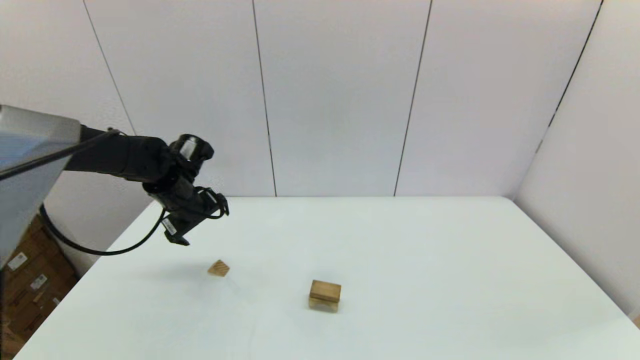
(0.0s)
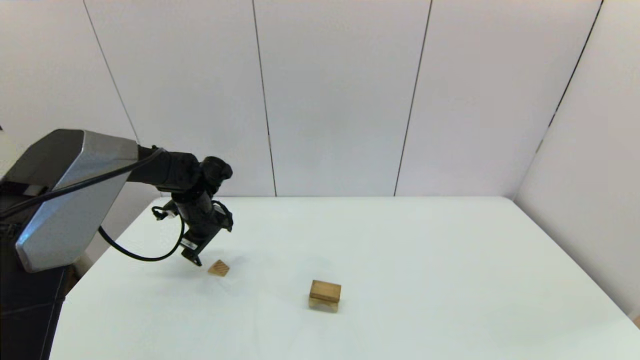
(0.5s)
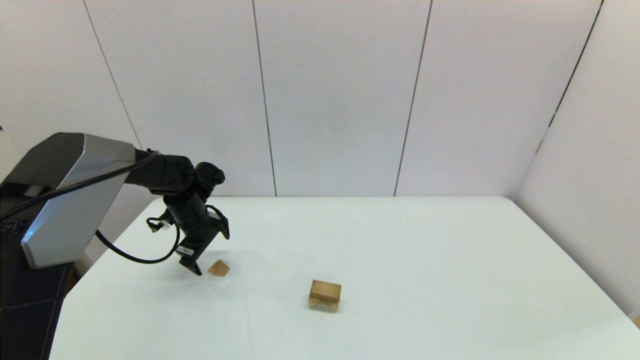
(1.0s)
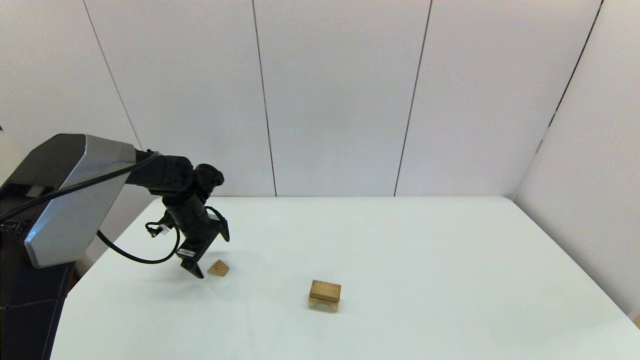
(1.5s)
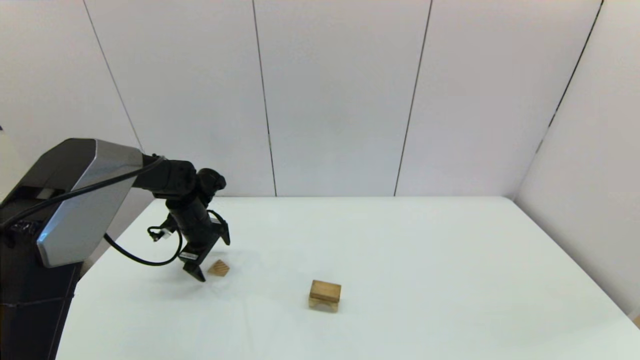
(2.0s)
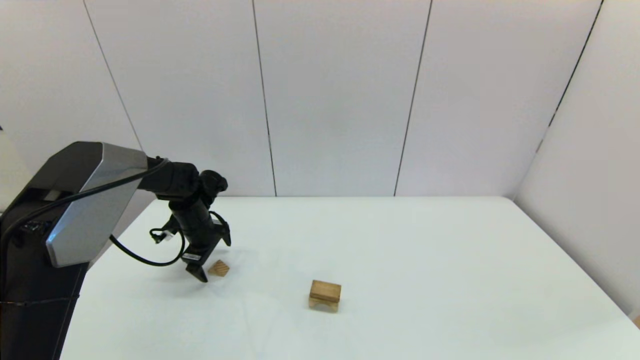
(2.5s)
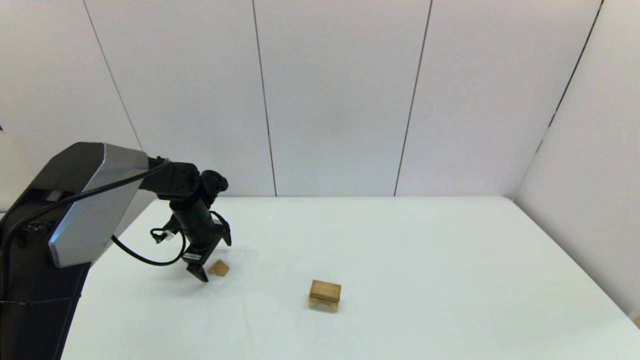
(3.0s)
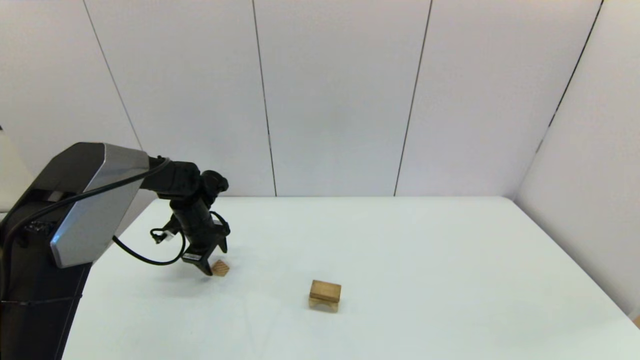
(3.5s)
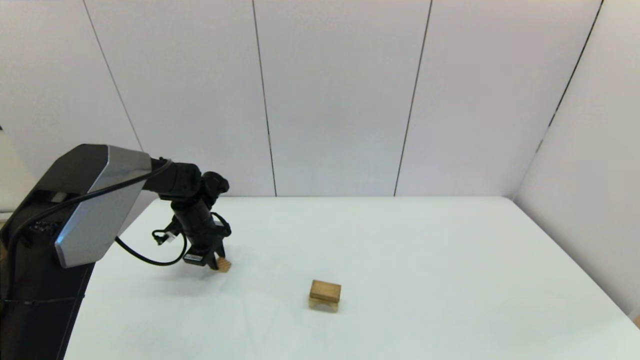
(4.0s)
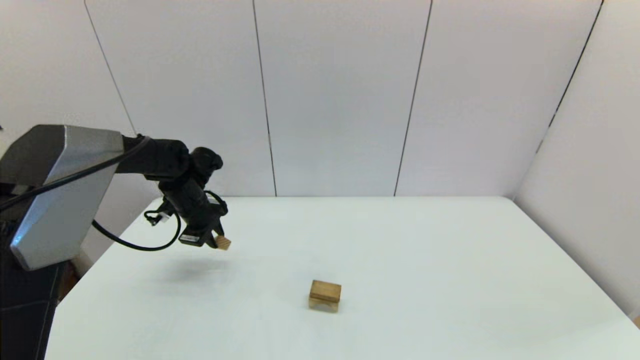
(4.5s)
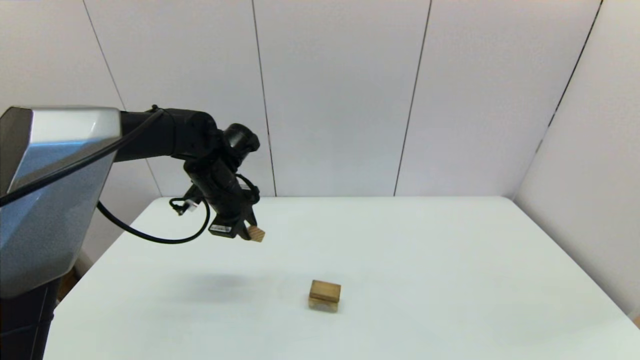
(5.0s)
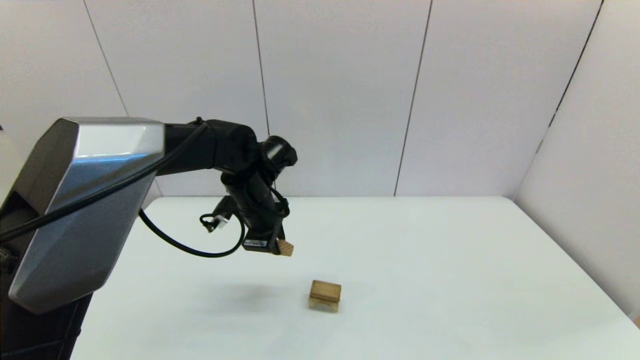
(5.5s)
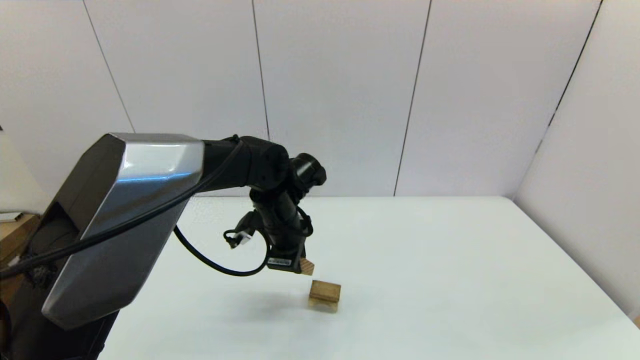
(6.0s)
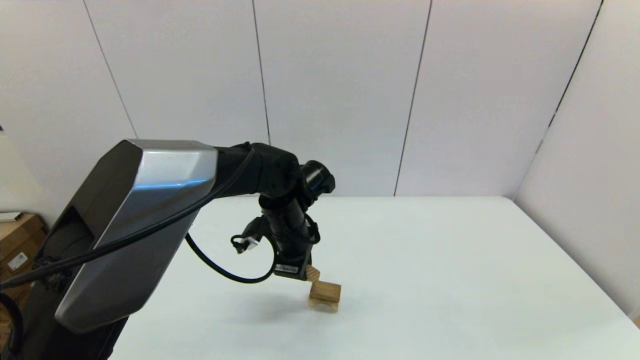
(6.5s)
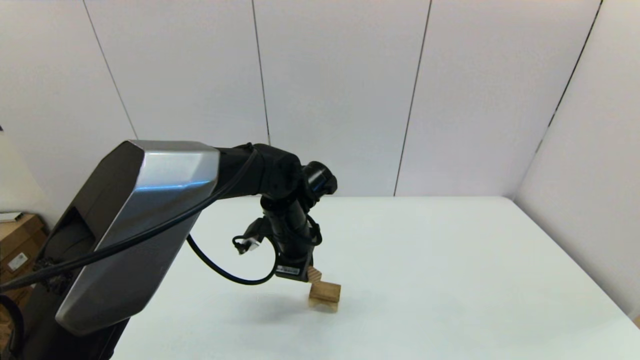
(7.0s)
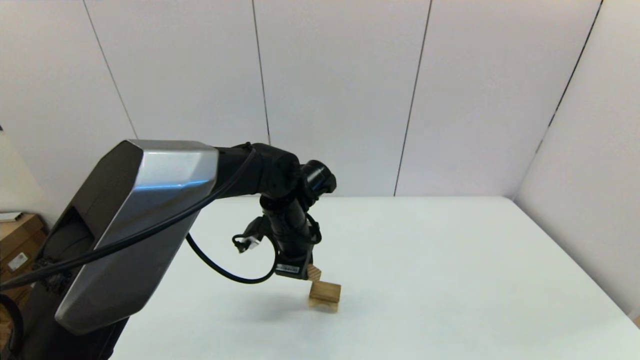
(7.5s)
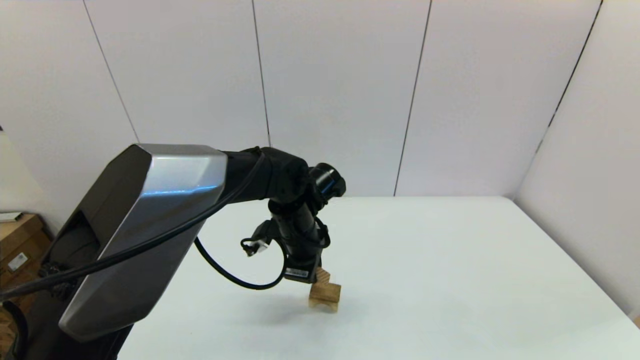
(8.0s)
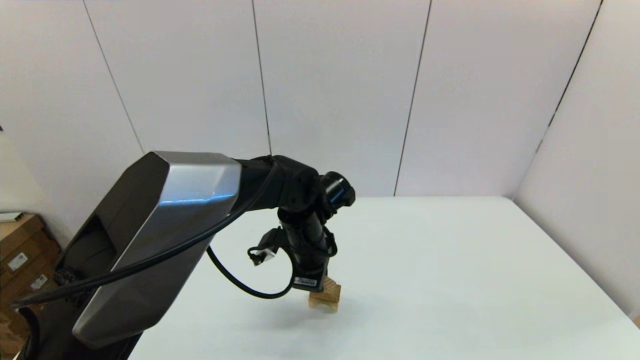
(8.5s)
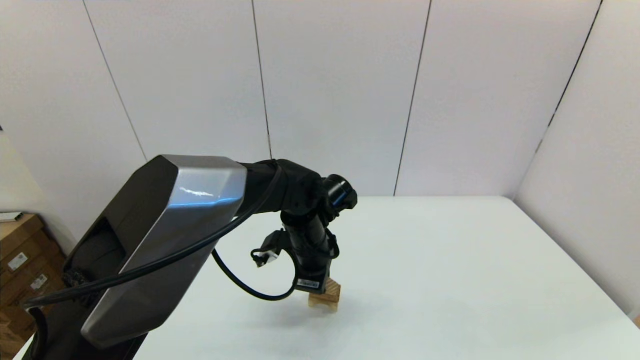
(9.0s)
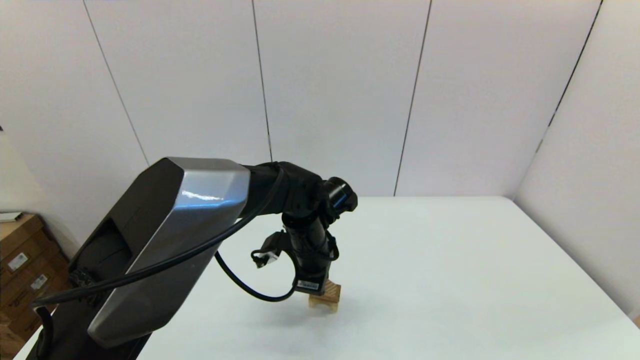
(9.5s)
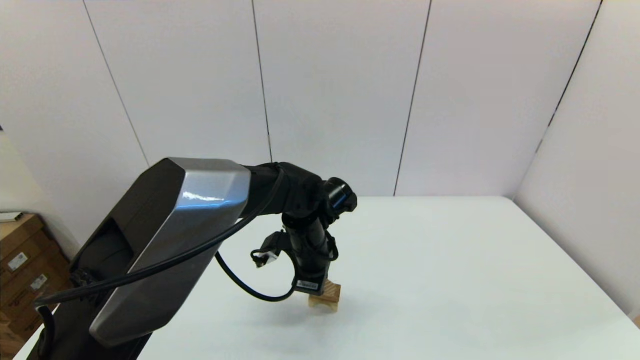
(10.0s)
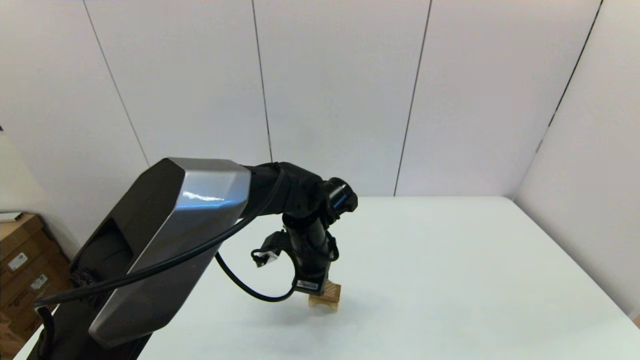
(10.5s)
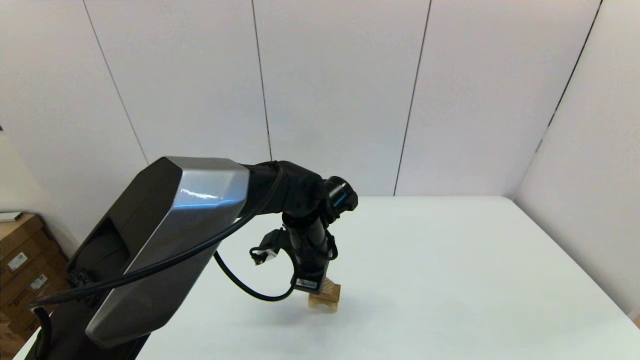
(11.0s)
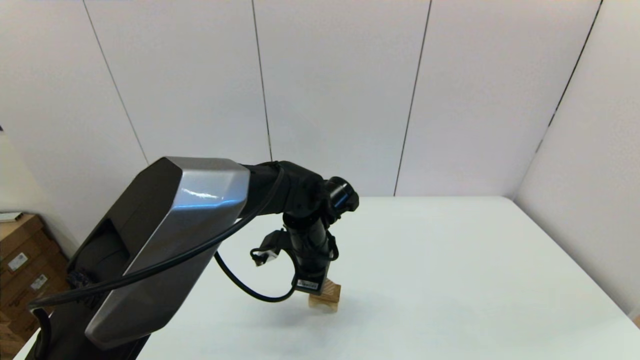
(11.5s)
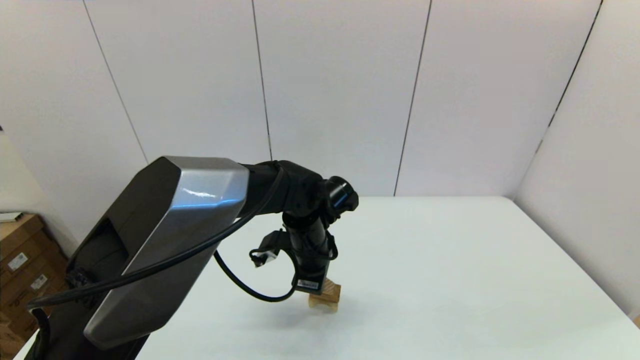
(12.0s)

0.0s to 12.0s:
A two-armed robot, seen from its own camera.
Task of the whole recording: place the arched building blocks in the center of the table, set up the rectangular building blocks, and then set up the triangular building blocks.
Step, 0.0s to 3.5s: Grasp the triangle-shaped block with the left gripper.
0.0s to 2.0s: The left gripper goes about 5 cm downward.
2.0s to 4.0s: The left gripper closes its fingers.
4.0s to 6.0s: The left gripper heads to the right, upward and backward, covering approximately 20 cm.
6.0s to 10.0s: The grippers stay close to where they were, moving slightly.
10.0s to 12.0s: The two grippers keep their place.

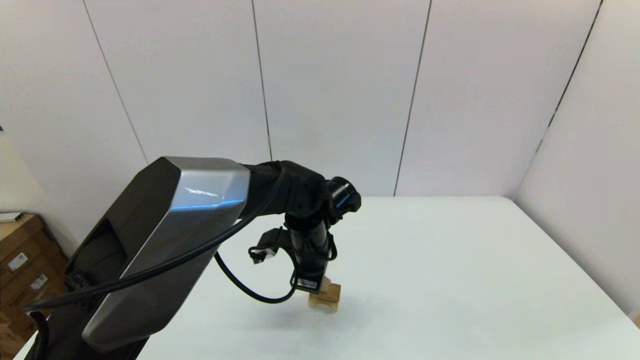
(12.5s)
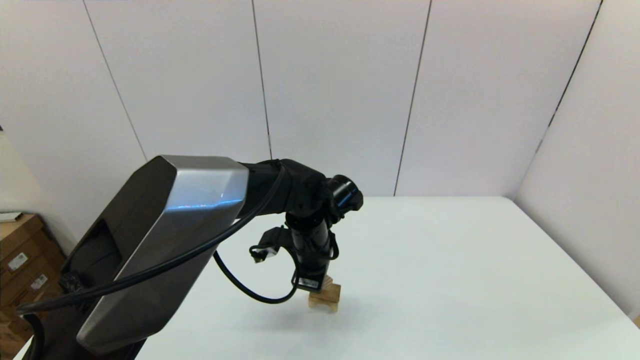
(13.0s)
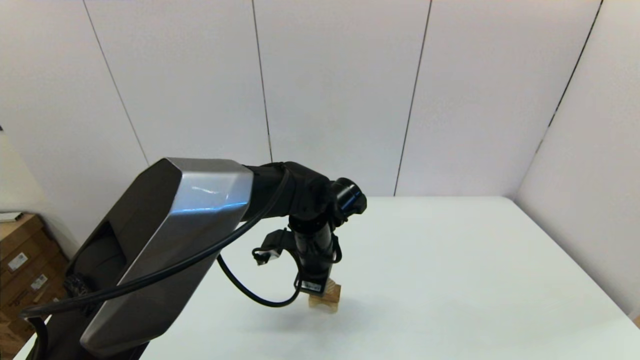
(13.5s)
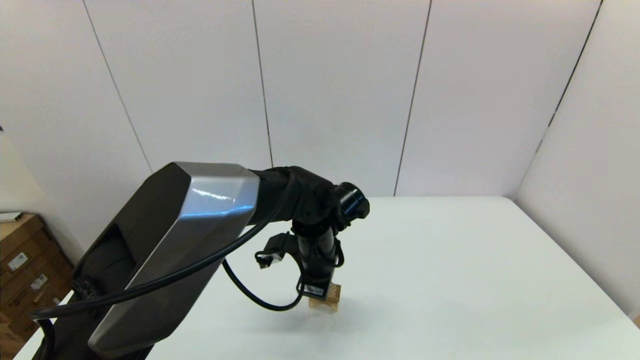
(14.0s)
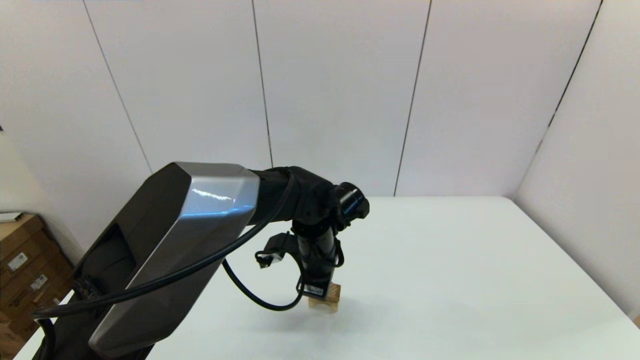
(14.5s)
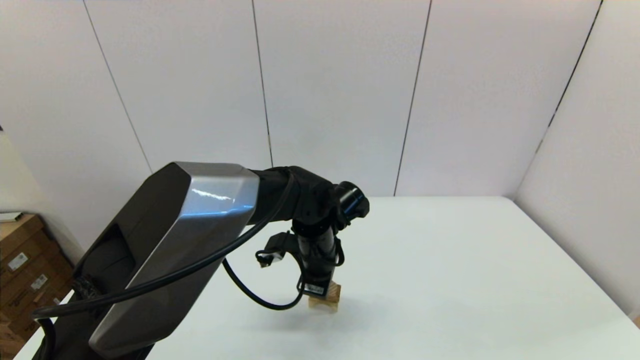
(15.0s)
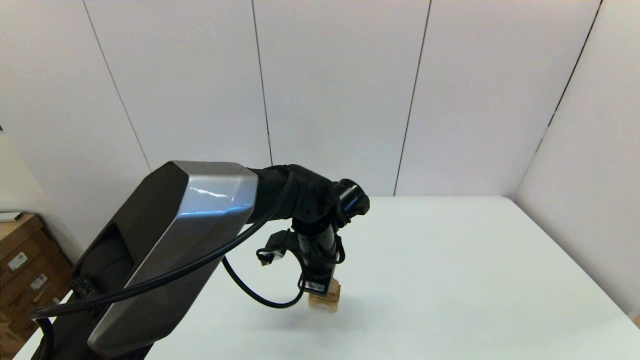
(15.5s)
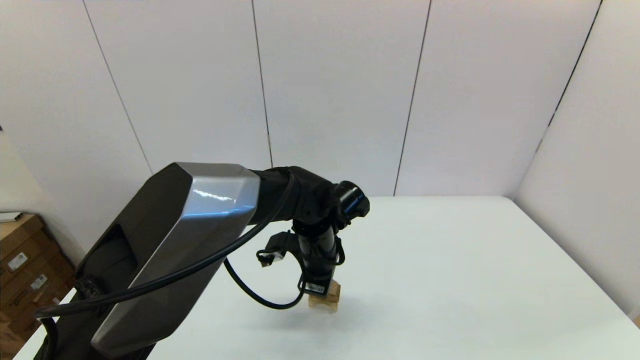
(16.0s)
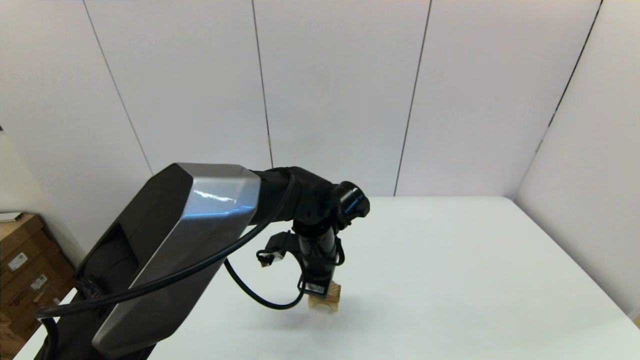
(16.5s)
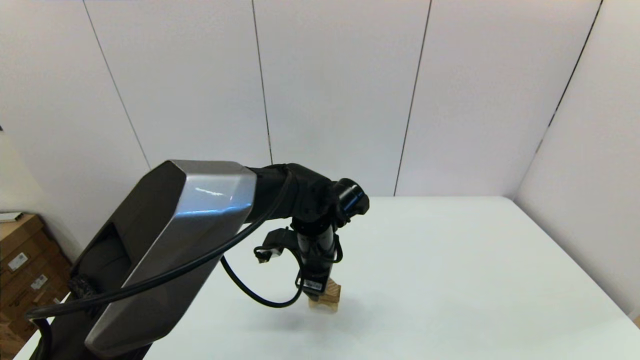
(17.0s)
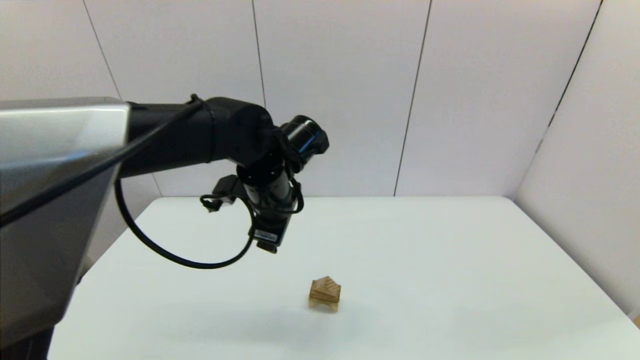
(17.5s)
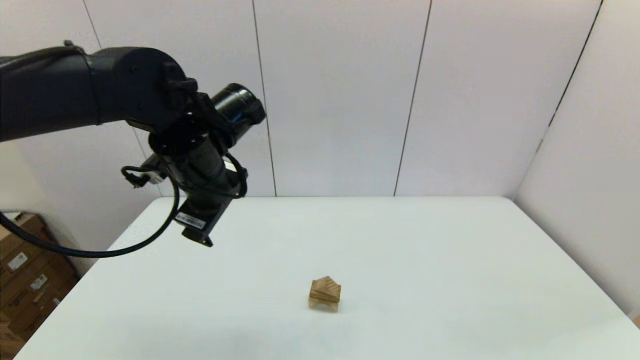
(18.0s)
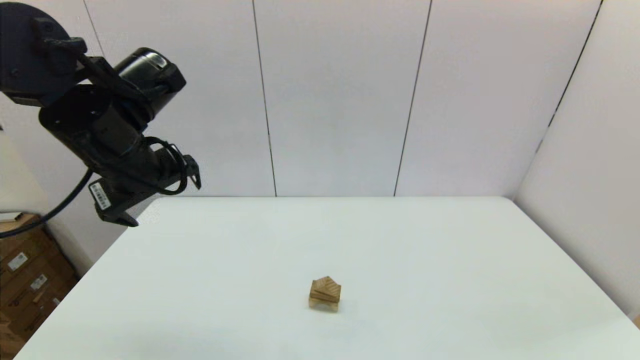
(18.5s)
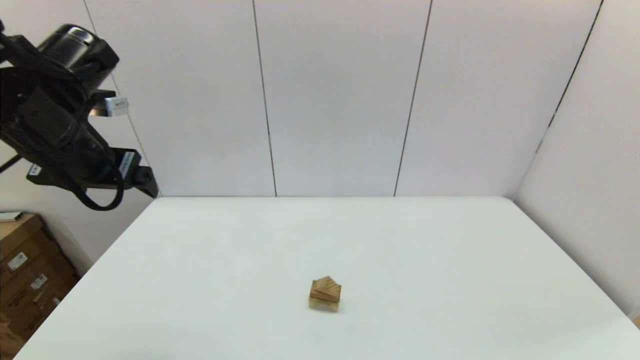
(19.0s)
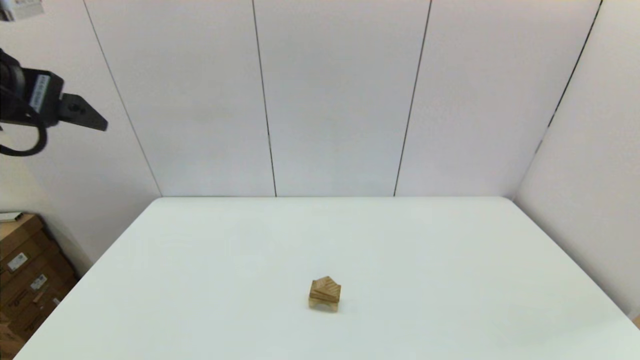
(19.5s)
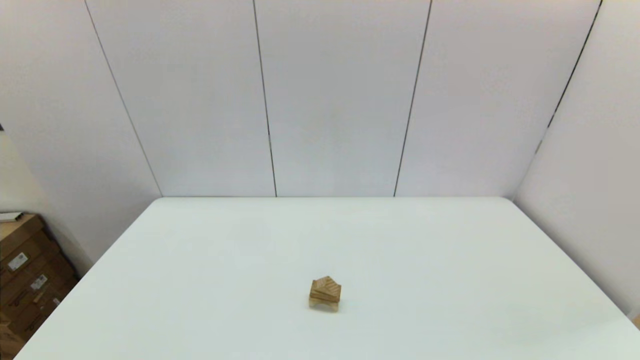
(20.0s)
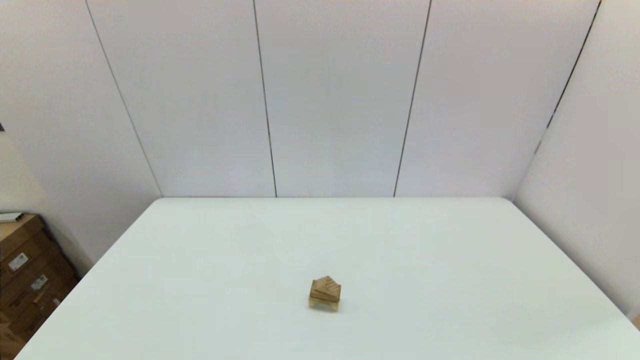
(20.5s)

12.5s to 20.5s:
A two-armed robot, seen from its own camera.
Task of the whole recording: place the arched building blocks in the center of the table, set up the rectangular building blocks, and then set up the triangular building blocks.
12.5s to 14.5s: There are only small adjustments of the grippers.
14.5s to 16.5s: The two grippers keep their place.
16.5s to 18.5s: The left gripper shifts roughly 30 cm to the left and upward, and opens.
18.5s to 20.5s: The left gripper shifts roughly 35 cm backward.
